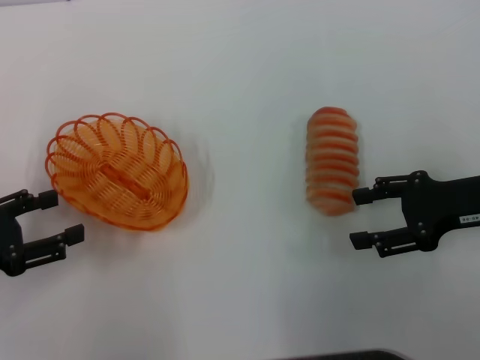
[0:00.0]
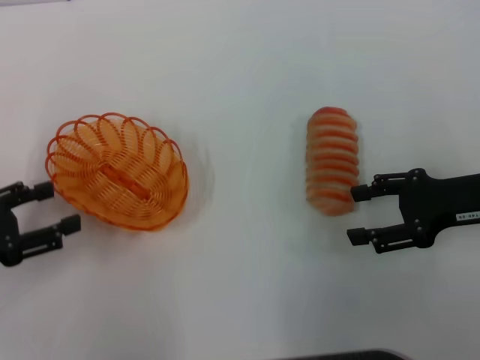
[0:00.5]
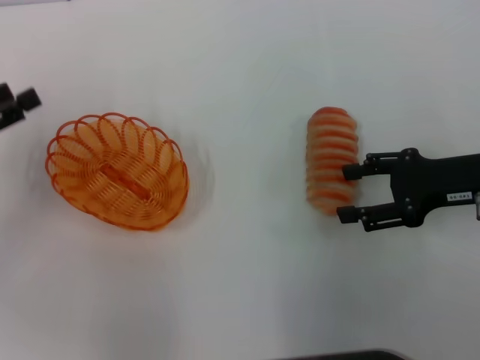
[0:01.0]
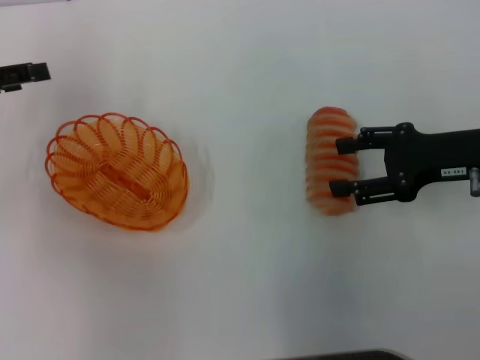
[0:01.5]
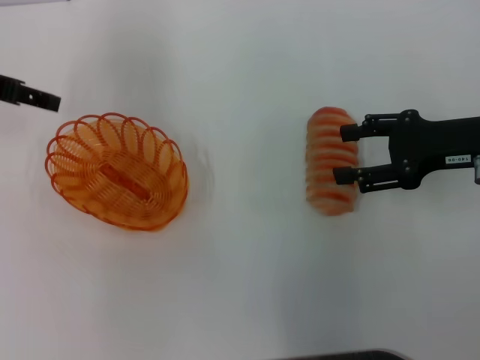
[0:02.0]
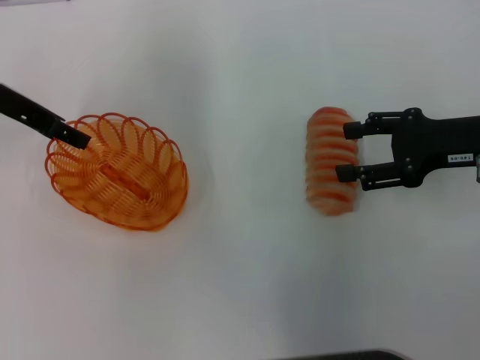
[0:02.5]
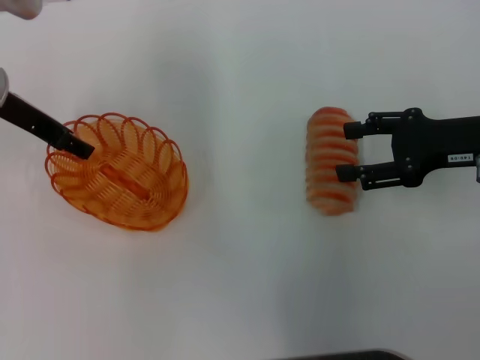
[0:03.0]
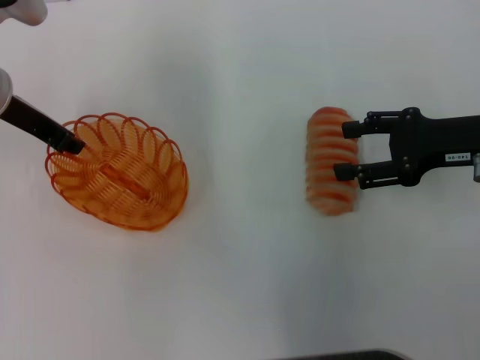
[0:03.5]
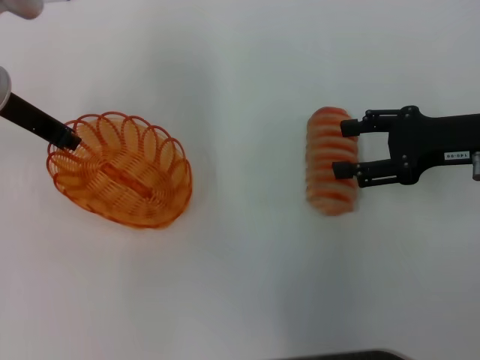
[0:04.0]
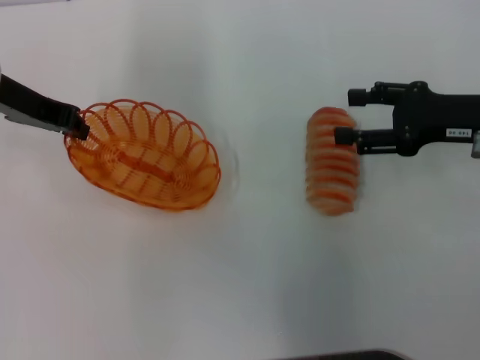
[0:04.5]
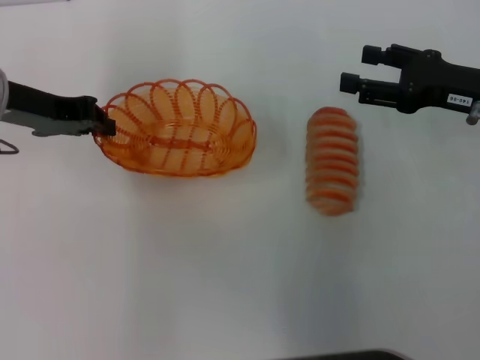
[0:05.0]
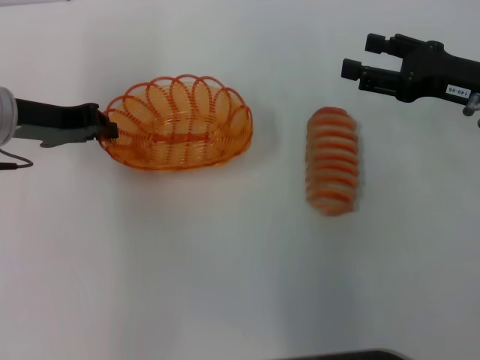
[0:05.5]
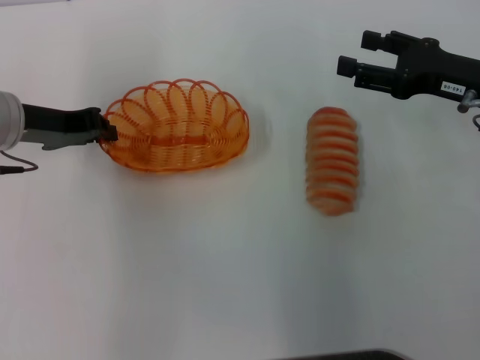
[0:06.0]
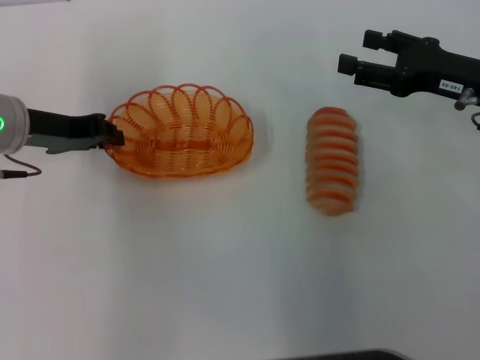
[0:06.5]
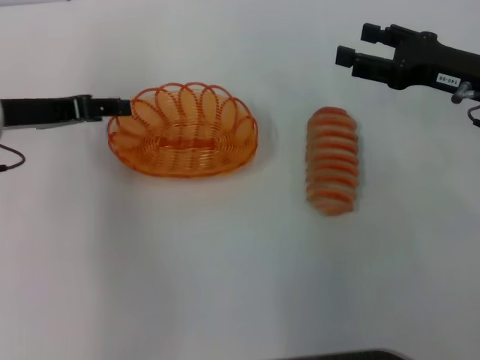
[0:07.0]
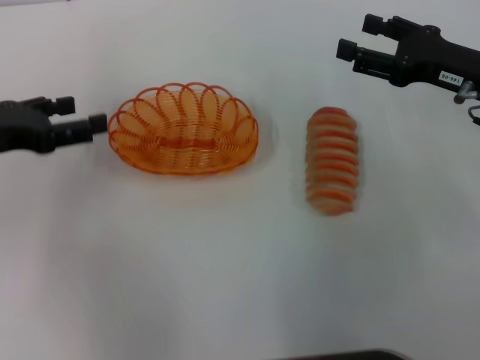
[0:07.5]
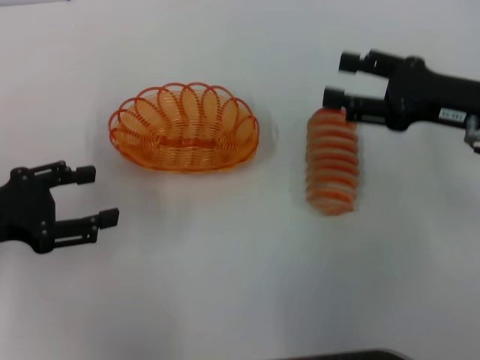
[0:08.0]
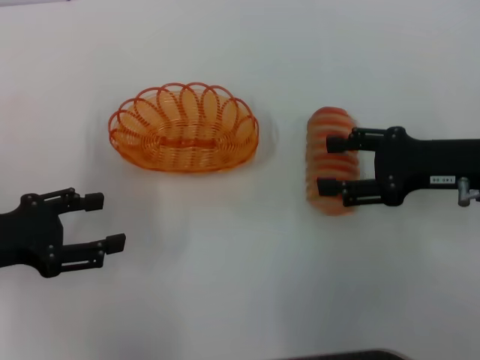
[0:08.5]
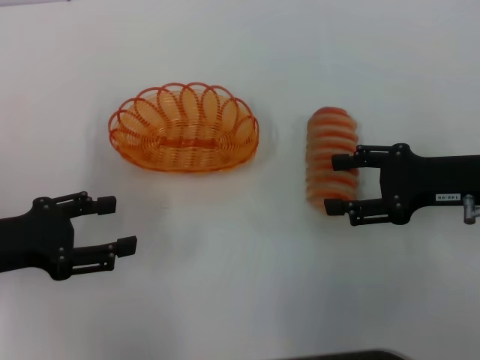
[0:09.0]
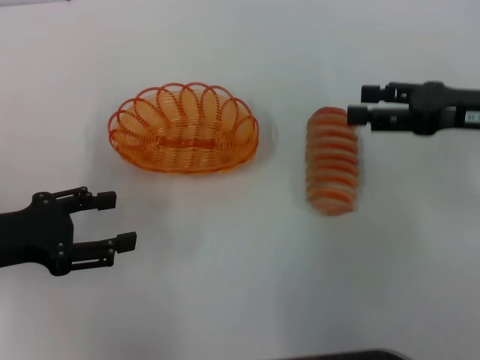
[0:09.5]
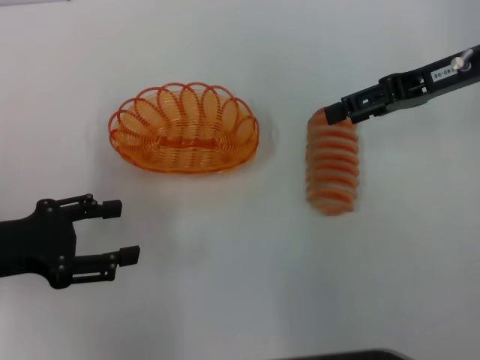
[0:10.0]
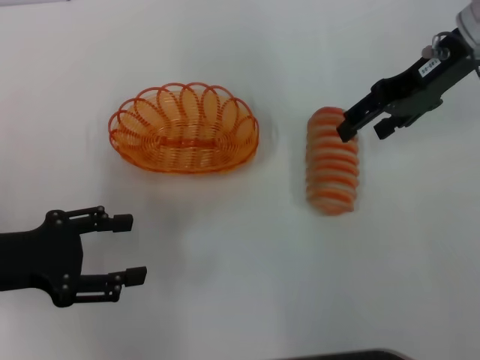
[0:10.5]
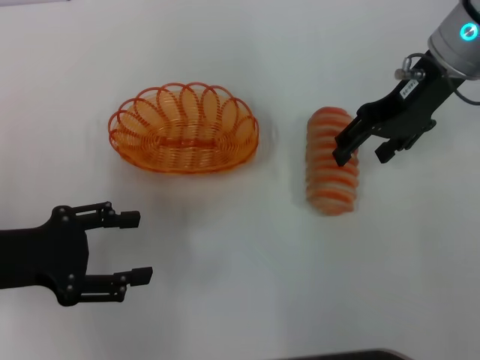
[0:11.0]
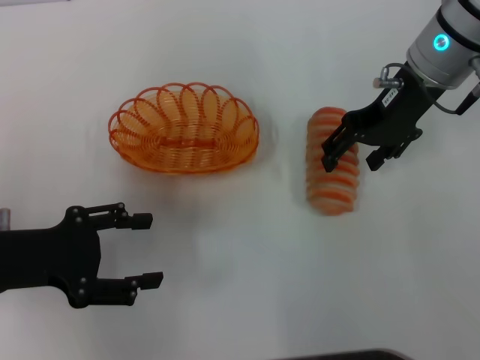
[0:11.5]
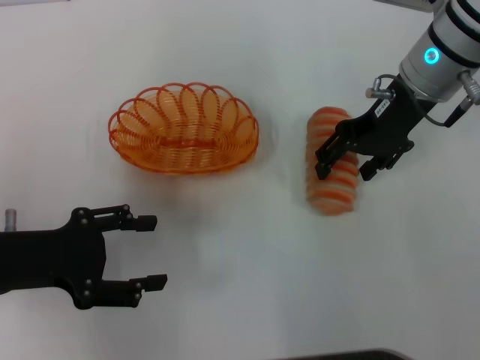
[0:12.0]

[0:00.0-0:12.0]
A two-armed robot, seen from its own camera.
Step, 0:00.0 to 0:04.5: Pick up the basket with the left gripper.
Step, 0:05.0 to 0:07.0: Place the basket in the center of view with the left gripper.
0:00.0 to 0:02.0: The left gripper goes about 20 cm forward and upward.
0:02.0 to 0:04.0: The left gripper travels to the right by approximately 5 cm, and closes its fingers.
0:06.0 to 0:08.0: The left gripper shifts some 15 cm backward and to the left, and opens.
0:08.0 to 0:10.0: The right gripper moves upward and forward, about 10 cm.
0:10.0 to 0:12.0: The right gripper moves to the left, some 10 cm.

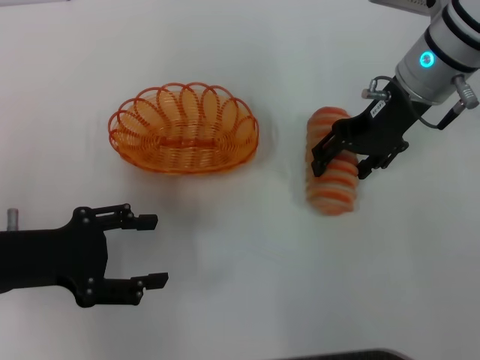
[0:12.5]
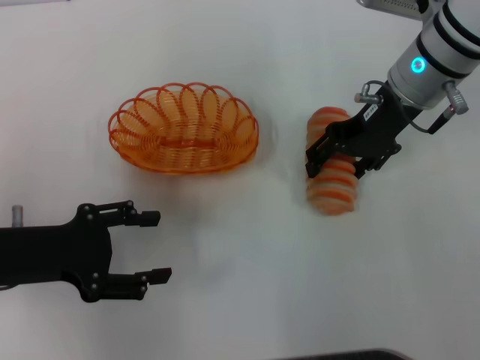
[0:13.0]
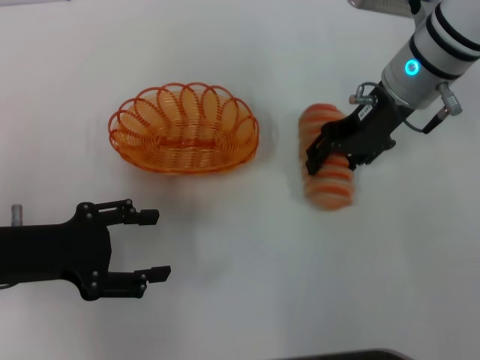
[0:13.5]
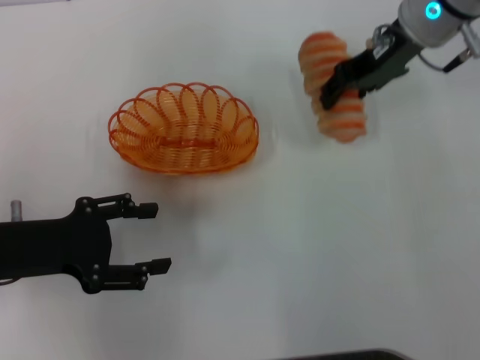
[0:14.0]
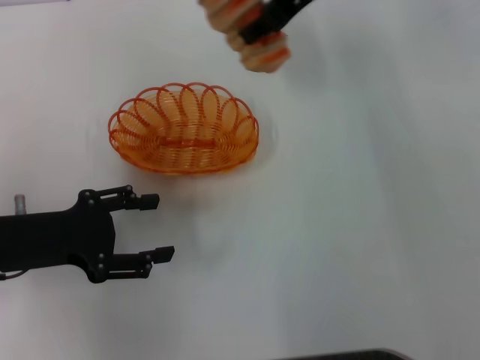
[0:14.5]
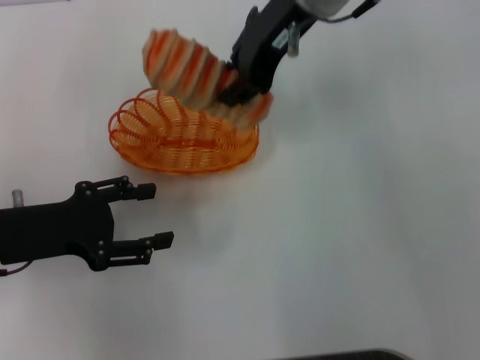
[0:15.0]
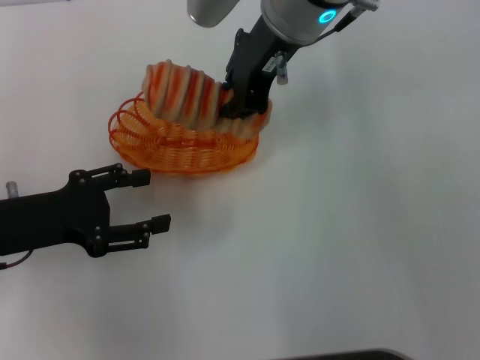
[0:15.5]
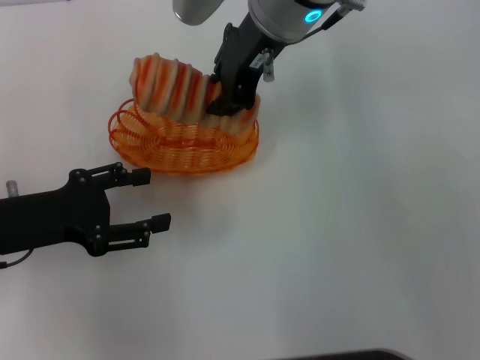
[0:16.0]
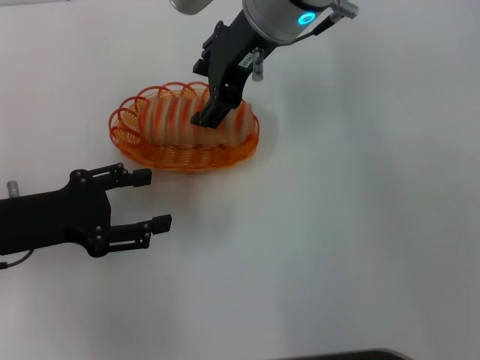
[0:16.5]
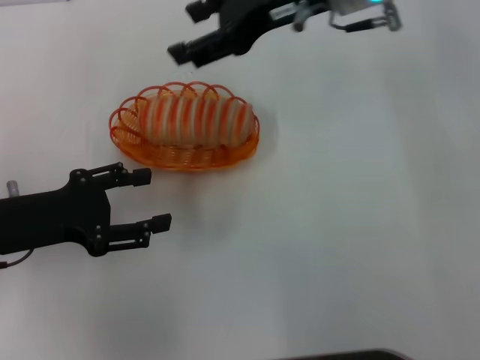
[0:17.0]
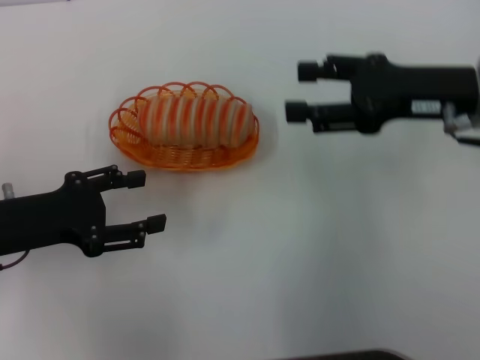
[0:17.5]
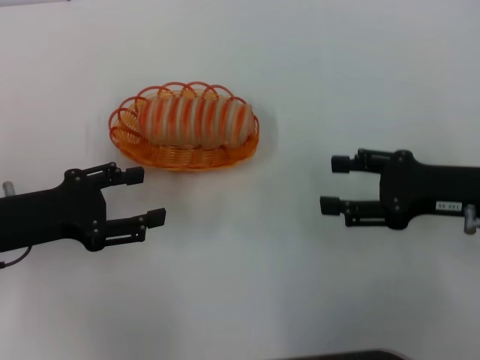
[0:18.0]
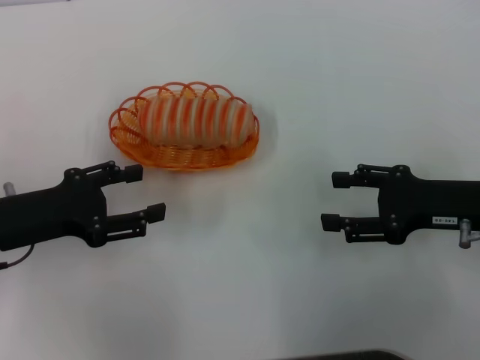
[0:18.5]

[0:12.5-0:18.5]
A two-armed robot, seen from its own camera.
Step, 0:14.5 to 0:16.5: Place the long bread into the basket with the right gripper.
0:12.5 to 0:14.5: The right gripper heads upward and to the left, covering about 10 cm, and closes its fingers.
0:14.5 to 0:16.5: The right gripper moves to the left, some 5 cm, and closes, then reopens.
0:16.5 to 0:18.5: The right gripper is displaced to the right, backward and downward by some 30 cm.
